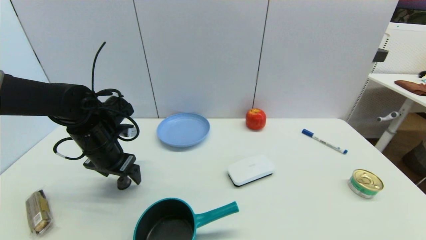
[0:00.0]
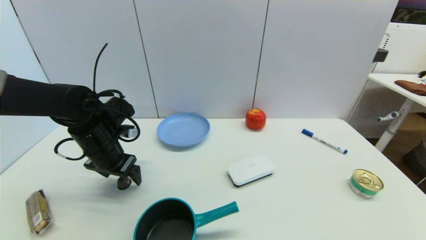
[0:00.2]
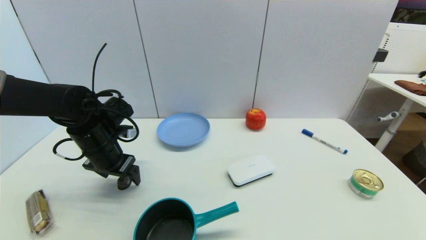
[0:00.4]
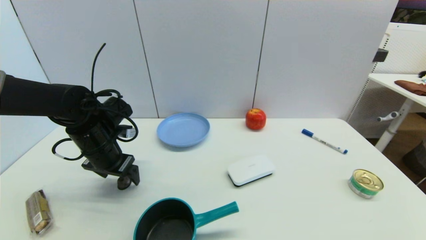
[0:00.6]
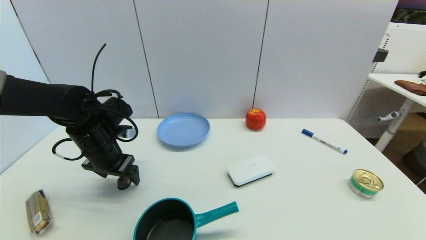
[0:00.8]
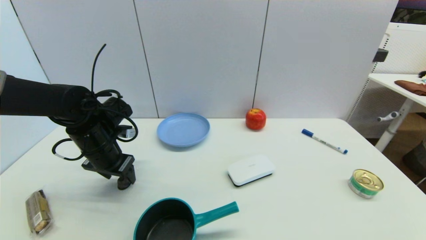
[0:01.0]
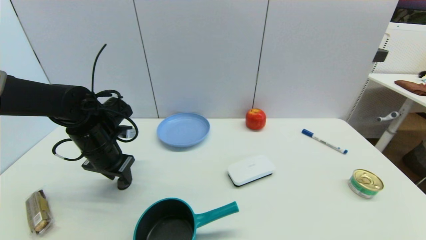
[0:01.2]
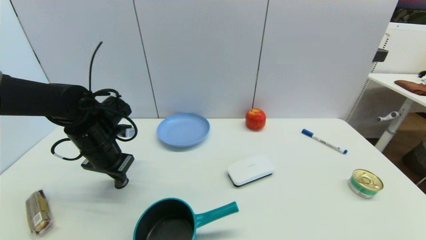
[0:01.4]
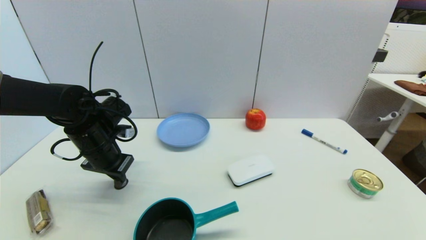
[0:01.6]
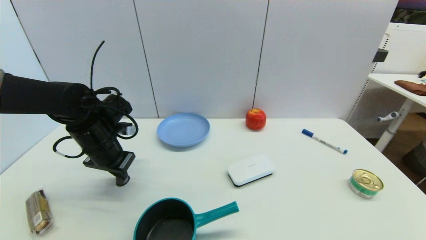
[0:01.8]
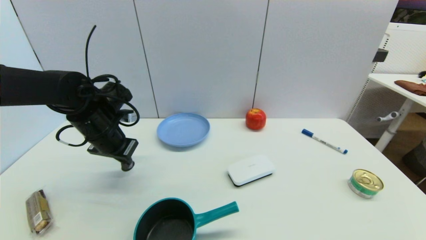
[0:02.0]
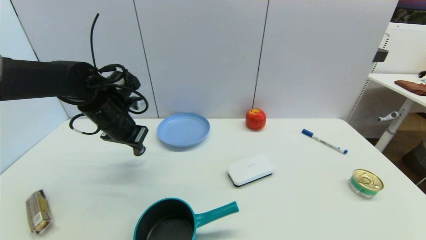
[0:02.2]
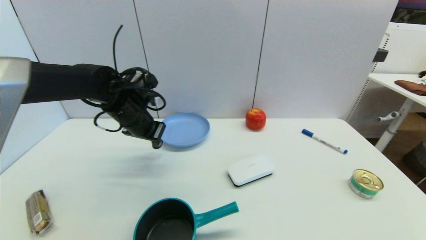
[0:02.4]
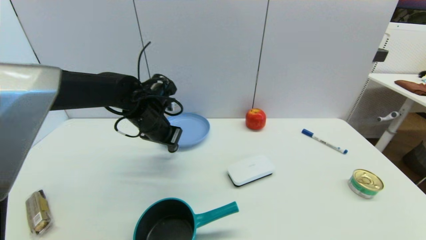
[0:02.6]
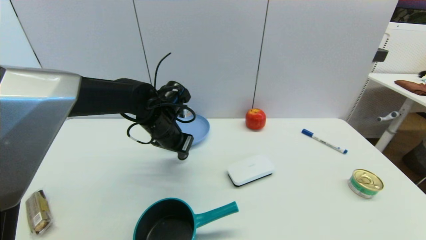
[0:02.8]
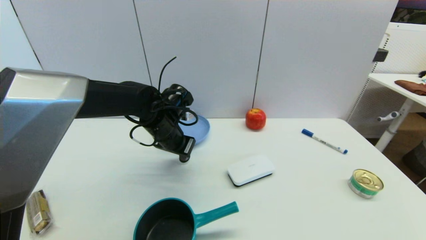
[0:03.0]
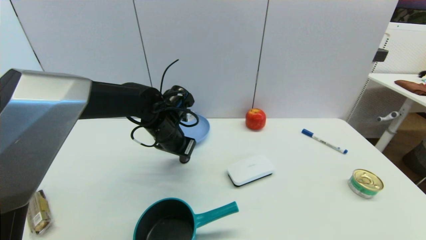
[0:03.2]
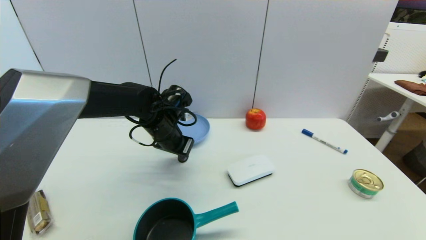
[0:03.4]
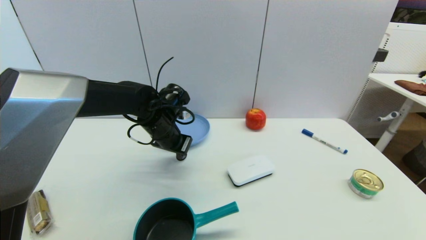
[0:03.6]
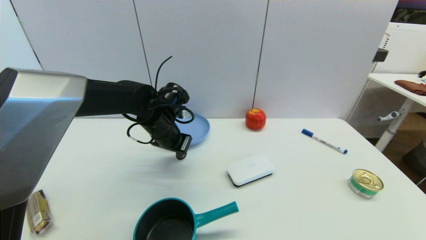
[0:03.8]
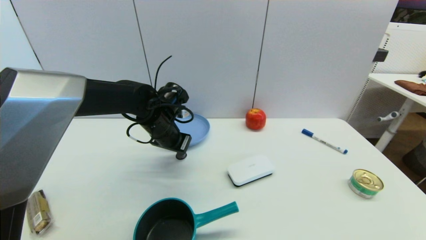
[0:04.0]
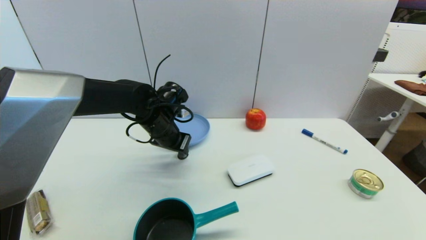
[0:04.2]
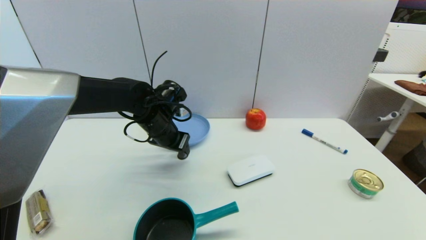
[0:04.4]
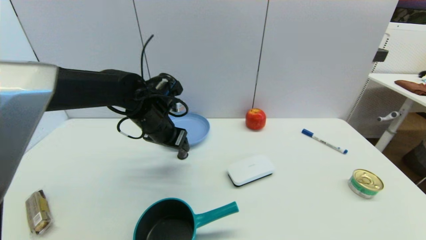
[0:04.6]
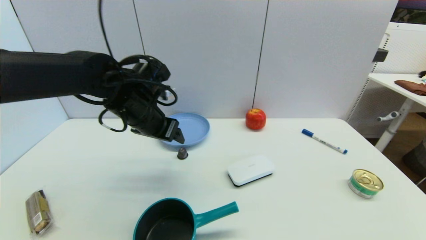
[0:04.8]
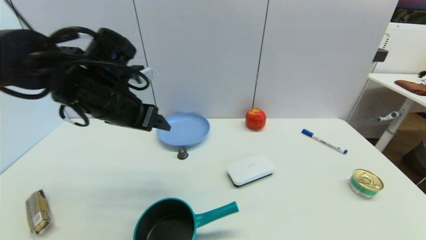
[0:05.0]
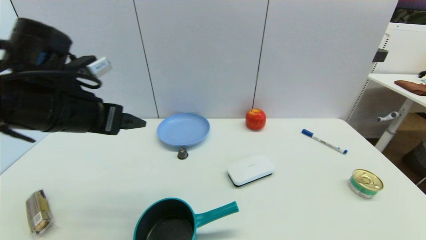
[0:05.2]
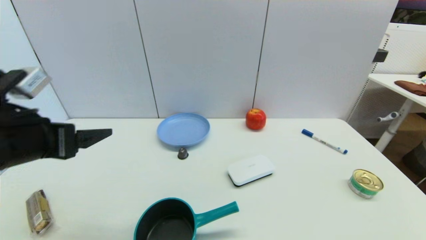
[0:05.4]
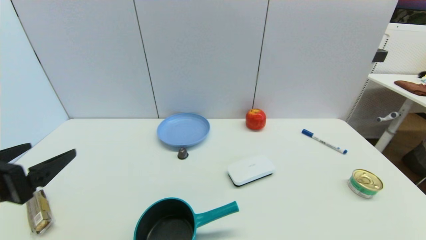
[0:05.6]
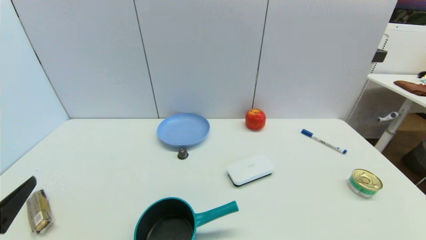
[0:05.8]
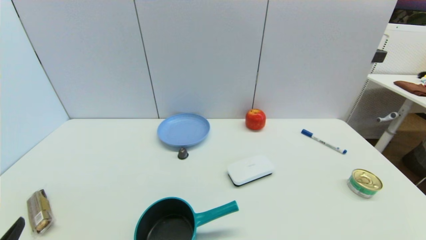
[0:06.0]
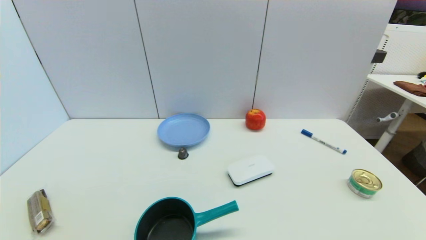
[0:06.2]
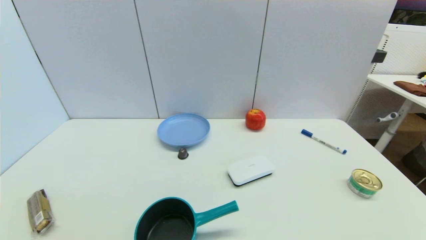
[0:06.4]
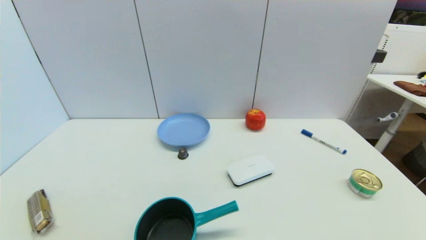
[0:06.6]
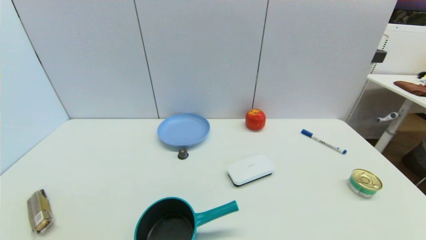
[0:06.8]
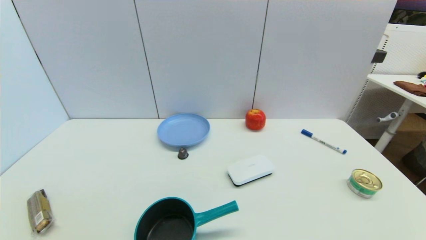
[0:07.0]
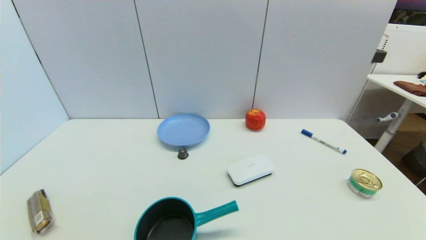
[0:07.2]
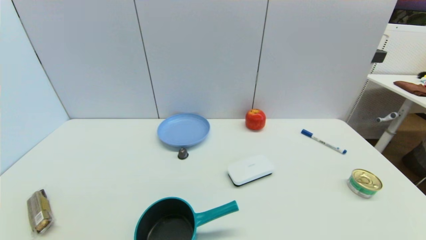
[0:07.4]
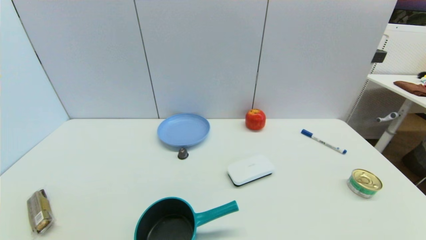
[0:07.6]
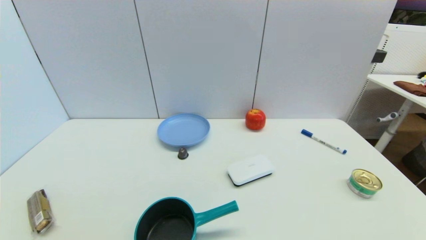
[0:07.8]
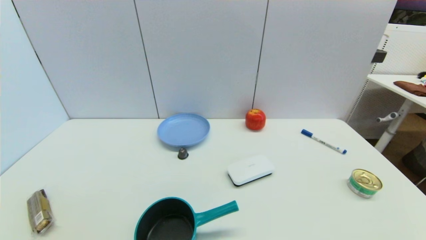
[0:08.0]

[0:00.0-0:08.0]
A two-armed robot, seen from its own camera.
Step, 0:01.8 to 0:04.0: Place the coffee capsule on the table with left gripper.
0:00.0 to 0:01.6: The left gripper closes up.
0:01.6 to 0:03.2: The left gripper shifts some 15 cm to the right.
0:03.2 to 0:04.8: The left gripper goes approximately 5 cm upward, and opens its fingers.
0:04.8 to 0:06.4: The left gripper heads backward, to the left and downward, covering about 40 cm.
0:06.4 to 0:08.0: Both grippers stay about where they are.
